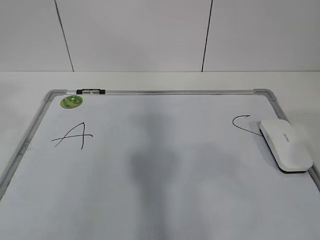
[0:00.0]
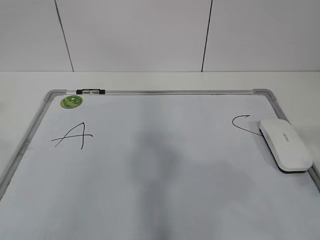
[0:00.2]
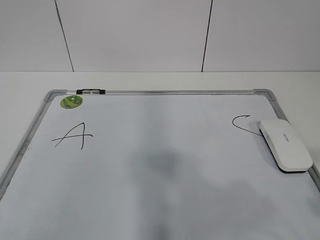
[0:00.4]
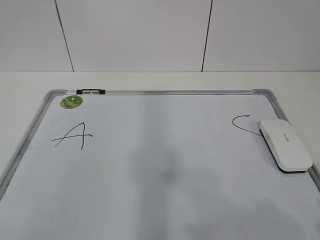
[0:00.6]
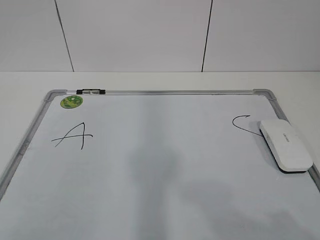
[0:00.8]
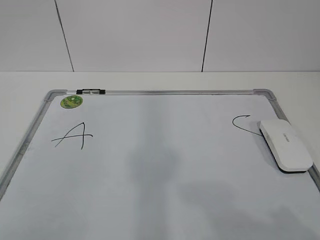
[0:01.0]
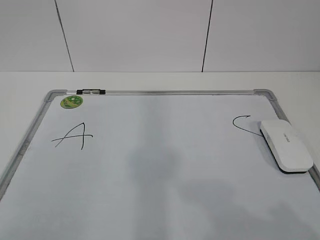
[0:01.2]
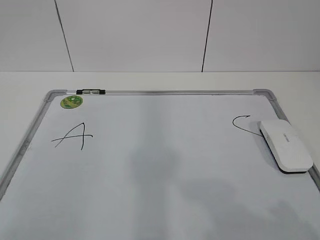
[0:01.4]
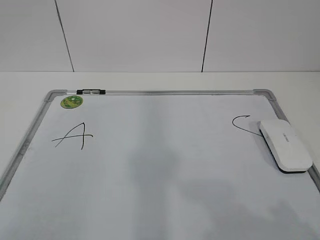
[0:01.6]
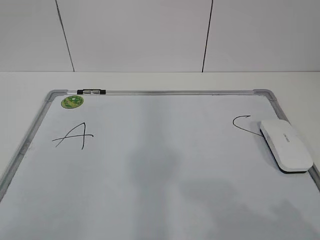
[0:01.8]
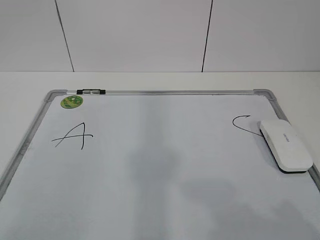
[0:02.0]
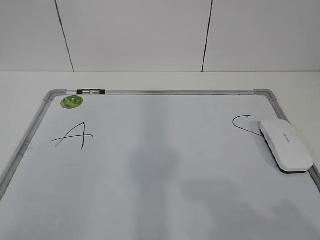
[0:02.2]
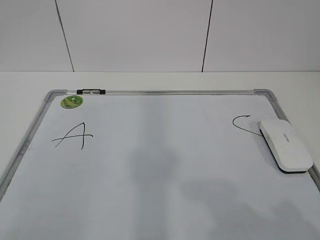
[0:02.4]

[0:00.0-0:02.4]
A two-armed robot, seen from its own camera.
Task of the whole recording: pick up the eraser on the blackboard and erase the letter "B".
0:00.0 to 0:01.2: Both grippers travel together downward and backward, some 15 cm.
0:01.2 to 0:02.4: Neither gripper changes place.

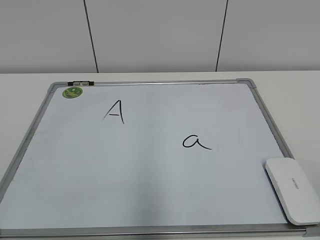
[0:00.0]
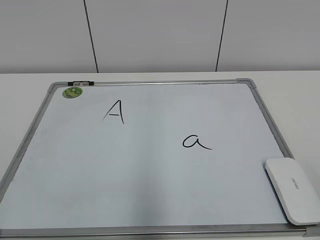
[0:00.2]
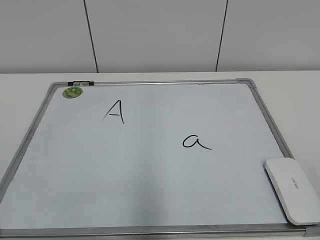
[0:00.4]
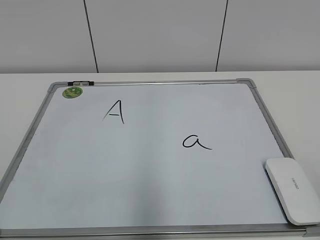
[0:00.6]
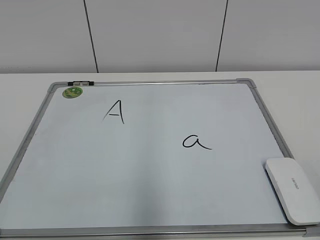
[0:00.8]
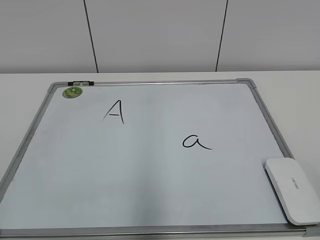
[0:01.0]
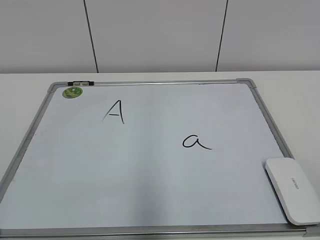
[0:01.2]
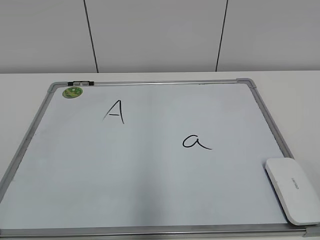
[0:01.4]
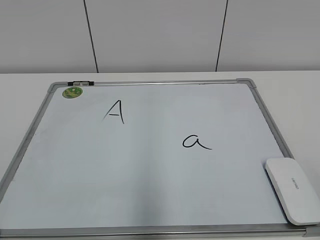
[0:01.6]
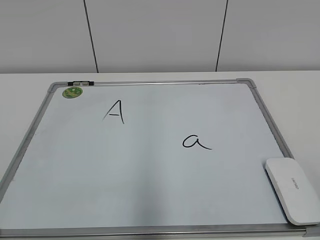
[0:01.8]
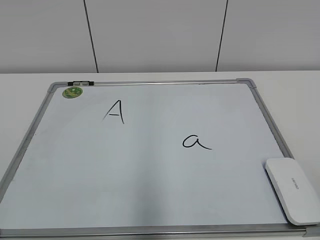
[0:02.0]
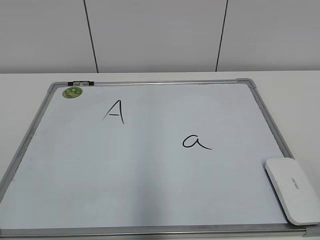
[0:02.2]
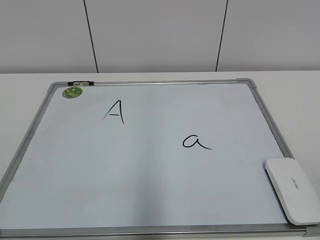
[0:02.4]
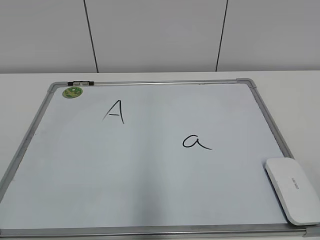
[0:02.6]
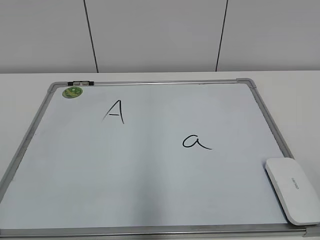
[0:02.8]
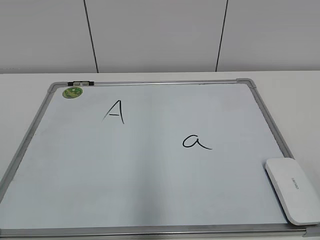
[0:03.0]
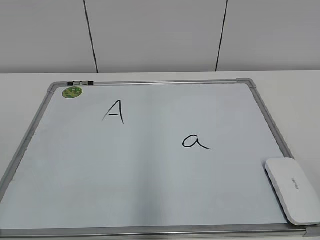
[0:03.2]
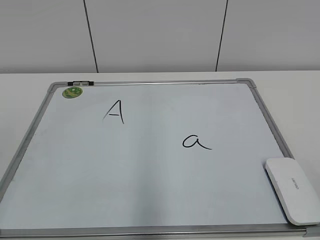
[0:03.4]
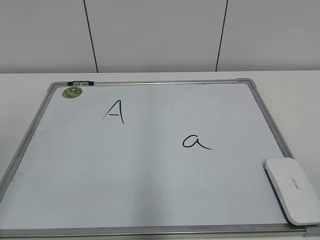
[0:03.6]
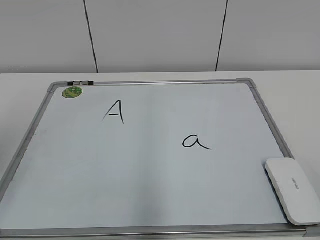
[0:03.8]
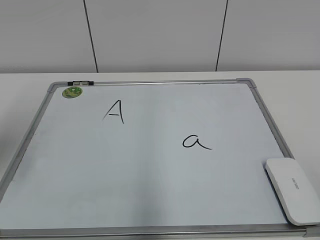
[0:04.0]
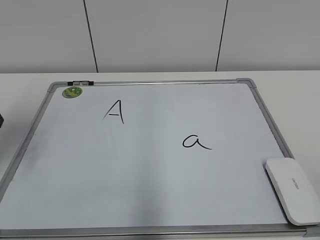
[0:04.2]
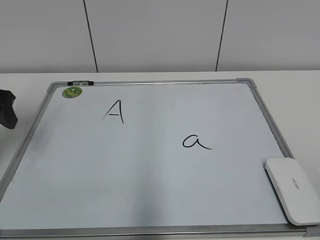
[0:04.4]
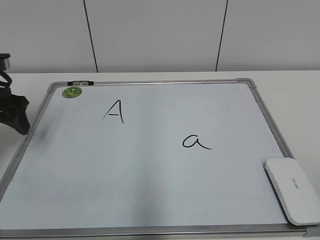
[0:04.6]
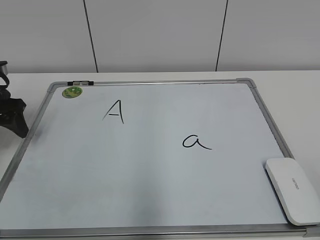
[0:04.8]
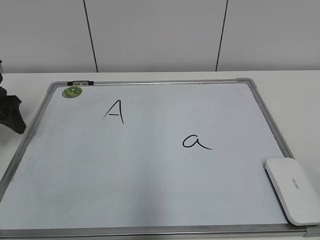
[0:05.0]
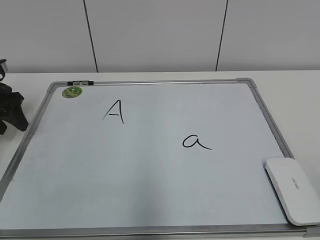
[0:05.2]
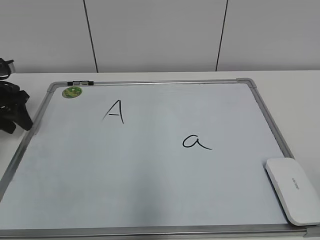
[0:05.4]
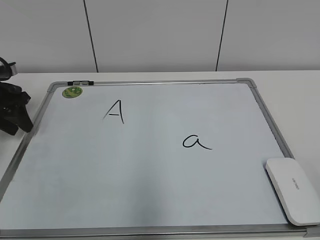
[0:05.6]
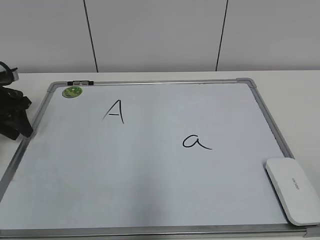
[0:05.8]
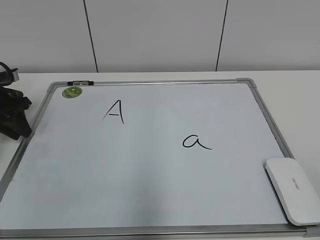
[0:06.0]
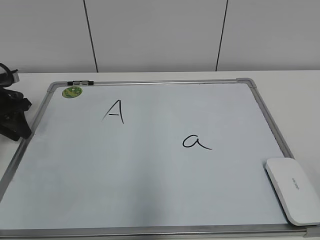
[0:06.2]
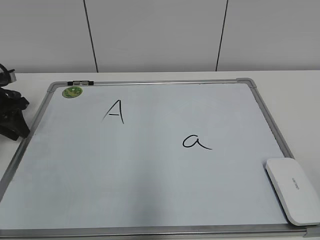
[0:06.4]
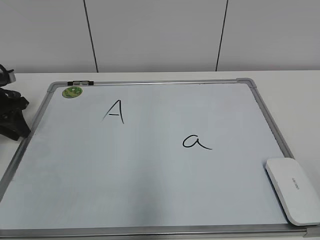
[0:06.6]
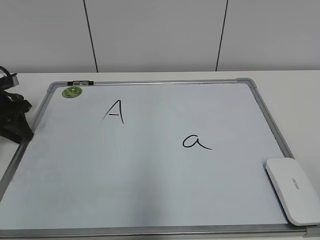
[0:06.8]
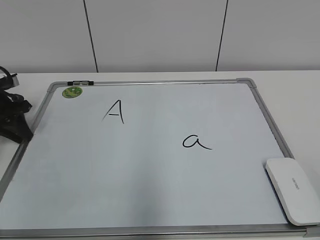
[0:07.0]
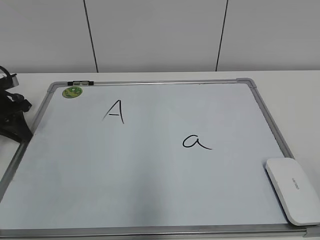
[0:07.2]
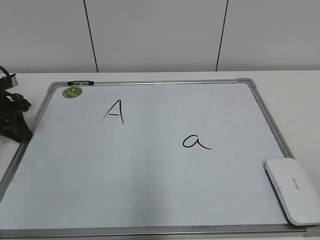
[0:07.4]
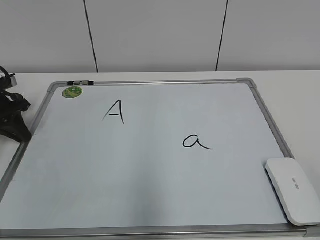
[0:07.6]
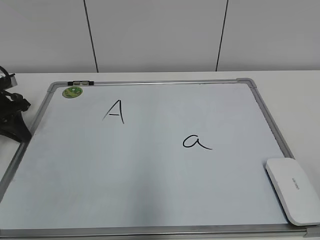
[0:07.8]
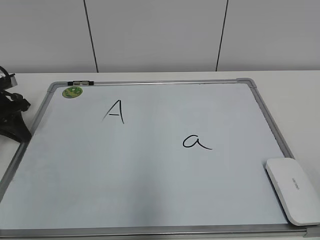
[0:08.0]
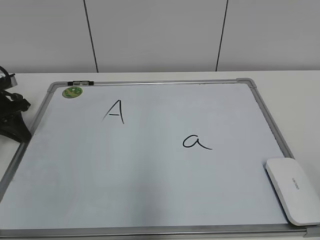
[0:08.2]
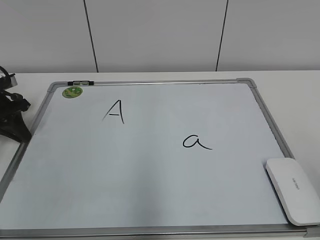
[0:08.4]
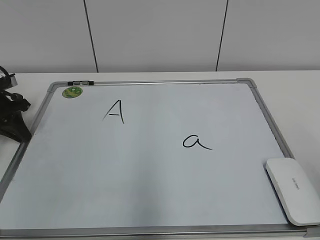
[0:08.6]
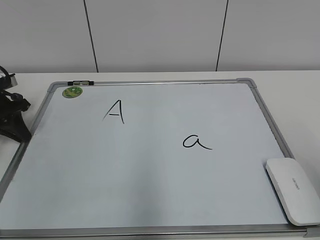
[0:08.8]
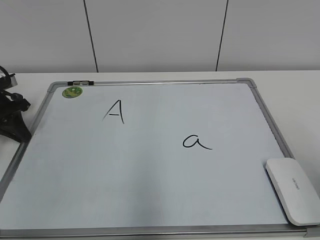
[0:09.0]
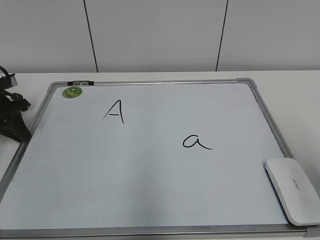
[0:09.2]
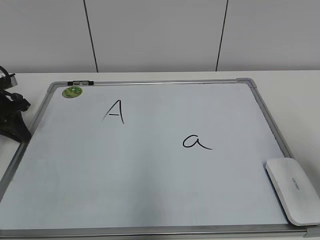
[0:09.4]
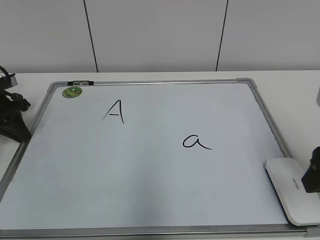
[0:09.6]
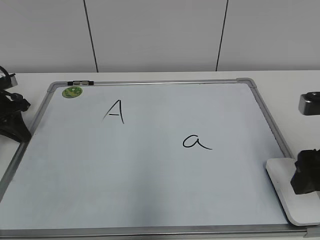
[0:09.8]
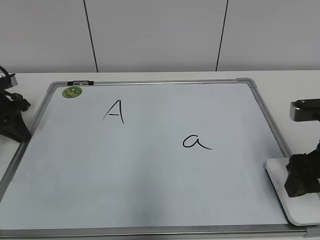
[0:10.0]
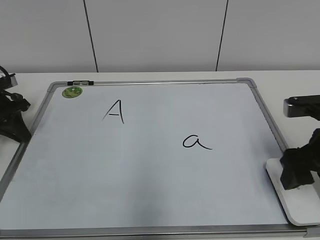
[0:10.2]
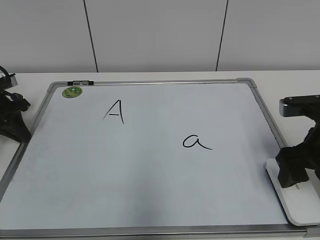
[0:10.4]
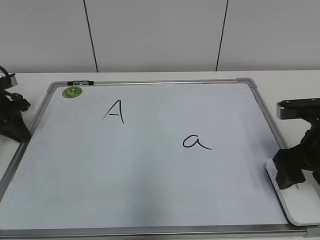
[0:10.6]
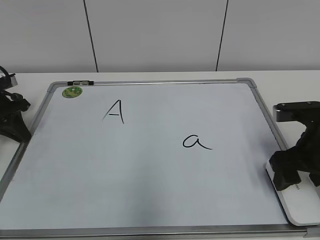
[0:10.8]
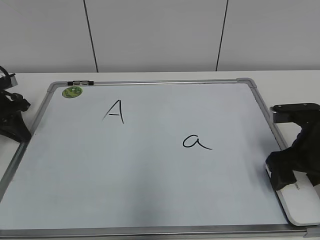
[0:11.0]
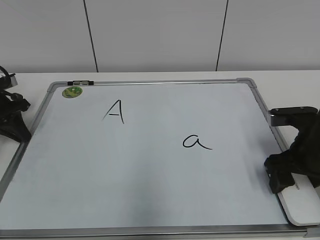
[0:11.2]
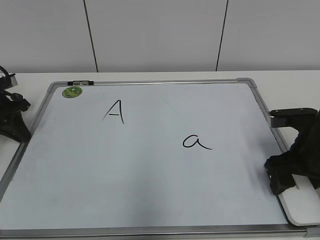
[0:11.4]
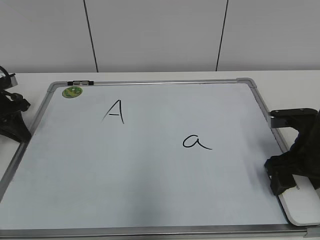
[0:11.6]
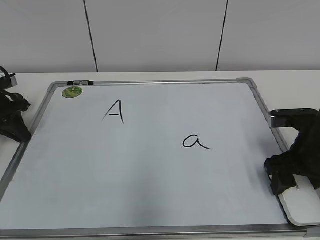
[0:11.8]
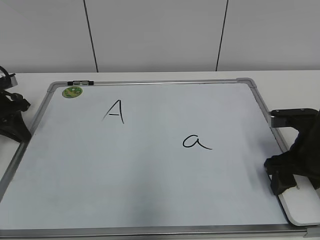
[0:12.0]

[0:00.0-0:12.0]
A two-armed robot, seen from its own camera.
Task of the whole recording: pick up the eraser on the blackboard and erase the letter "a".
Step, 0:00.0 to 0:07.0: Hold the drawing board steady with your left hand.
0:03.0 to 0:04.4: The left gripper goes roughly 35 cm forward.
0:04.4 to 0:06.0: The left gripper moves forward and downward, roughly 15 cm, and closes its fingers.
0:09.0 to 0:10.4: The right gripper goes approximately 15 cm forward and downward.
0:10.4 to 0:12.0: The grippers make only small movements.

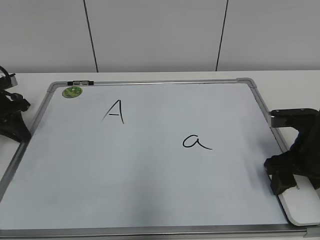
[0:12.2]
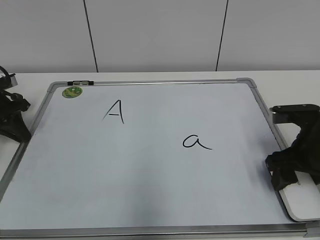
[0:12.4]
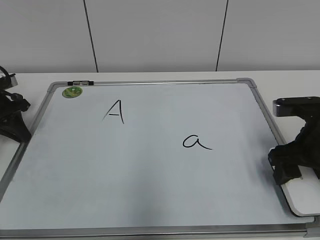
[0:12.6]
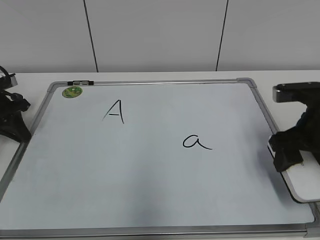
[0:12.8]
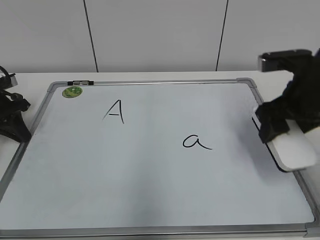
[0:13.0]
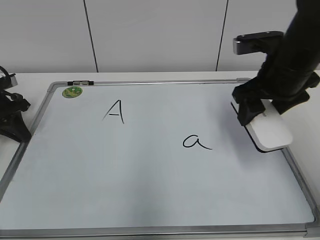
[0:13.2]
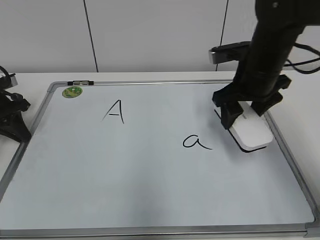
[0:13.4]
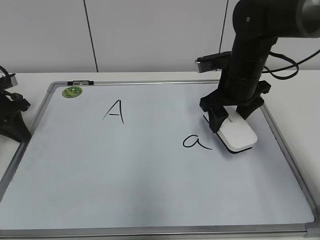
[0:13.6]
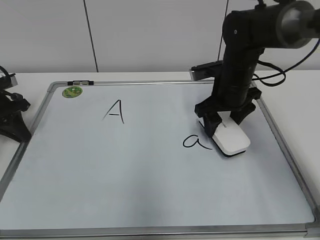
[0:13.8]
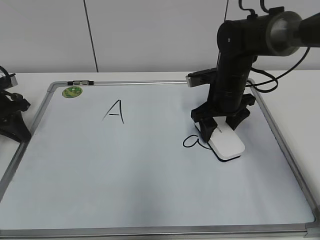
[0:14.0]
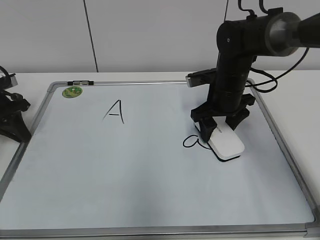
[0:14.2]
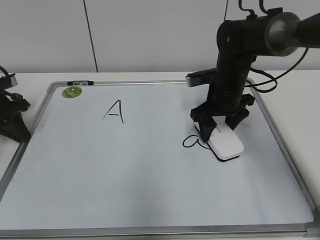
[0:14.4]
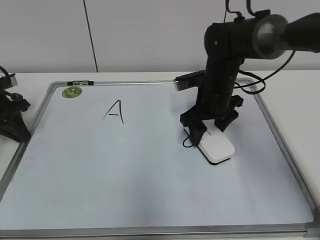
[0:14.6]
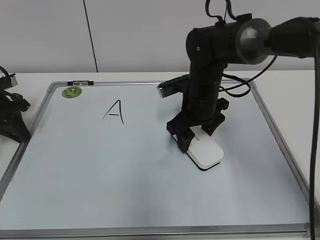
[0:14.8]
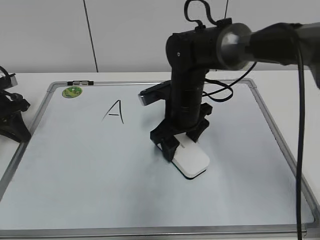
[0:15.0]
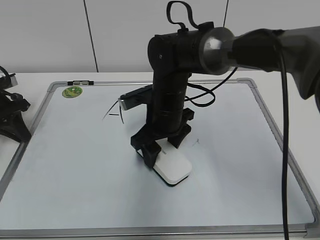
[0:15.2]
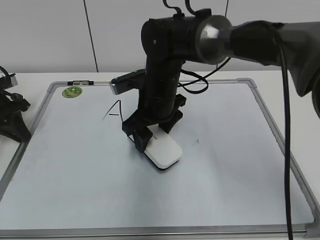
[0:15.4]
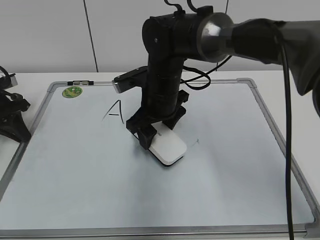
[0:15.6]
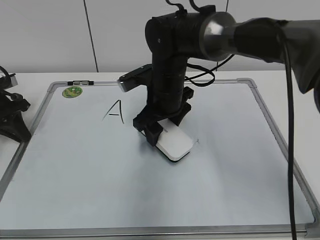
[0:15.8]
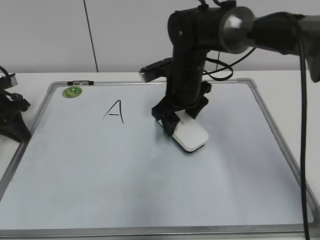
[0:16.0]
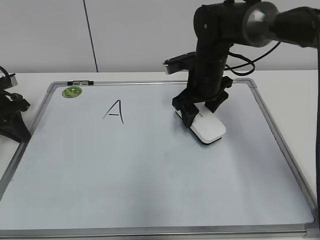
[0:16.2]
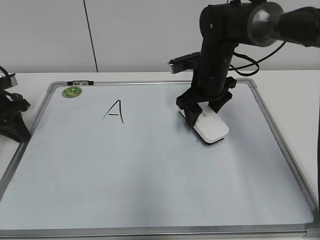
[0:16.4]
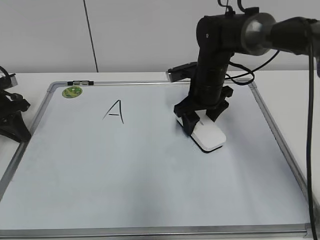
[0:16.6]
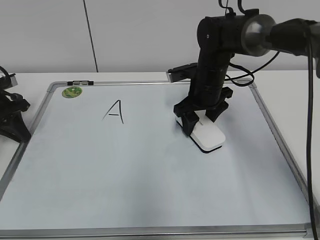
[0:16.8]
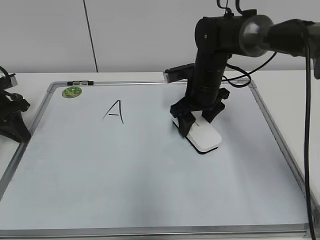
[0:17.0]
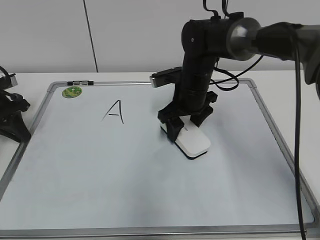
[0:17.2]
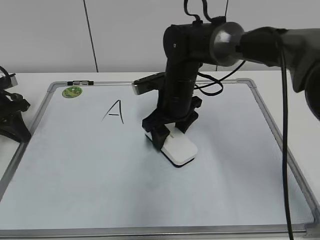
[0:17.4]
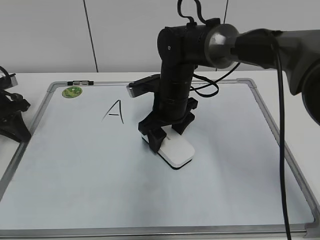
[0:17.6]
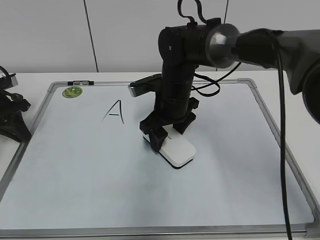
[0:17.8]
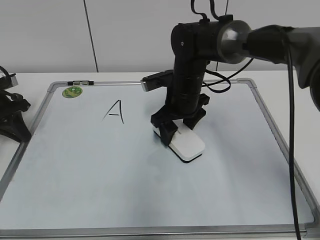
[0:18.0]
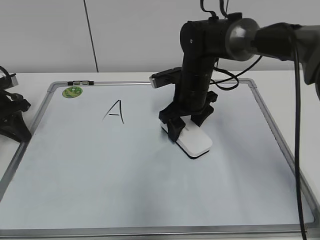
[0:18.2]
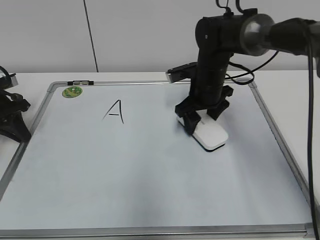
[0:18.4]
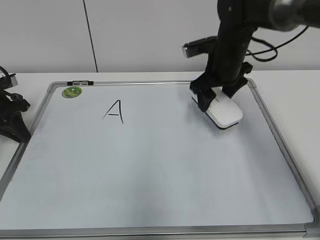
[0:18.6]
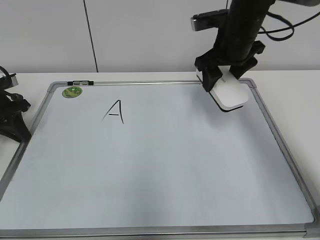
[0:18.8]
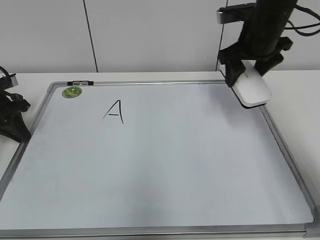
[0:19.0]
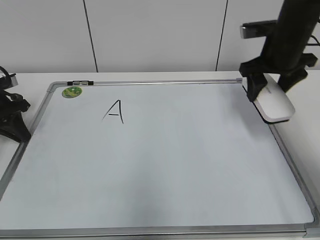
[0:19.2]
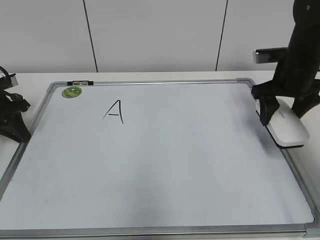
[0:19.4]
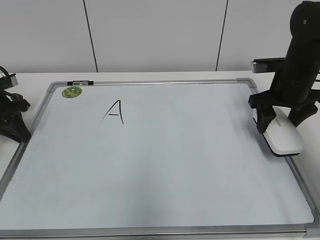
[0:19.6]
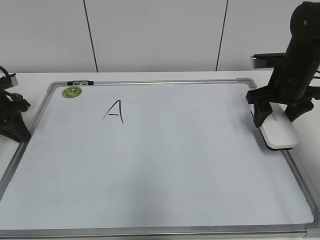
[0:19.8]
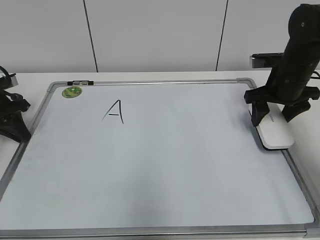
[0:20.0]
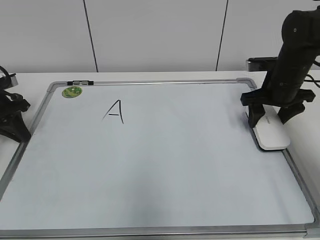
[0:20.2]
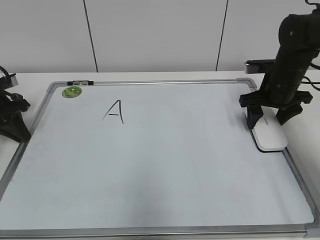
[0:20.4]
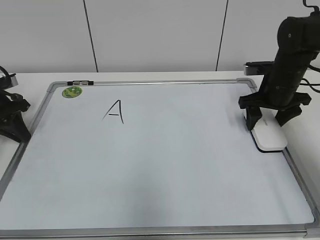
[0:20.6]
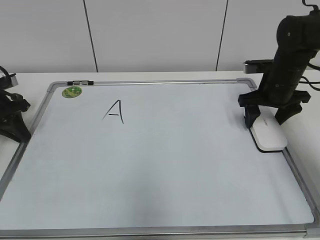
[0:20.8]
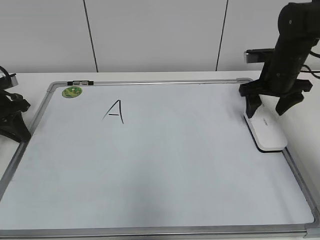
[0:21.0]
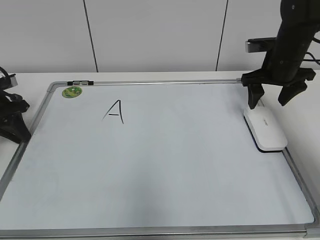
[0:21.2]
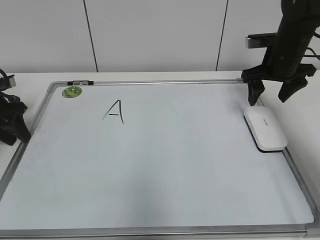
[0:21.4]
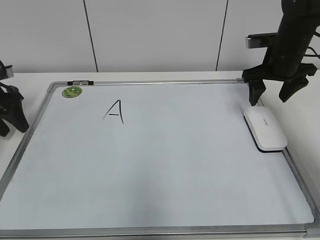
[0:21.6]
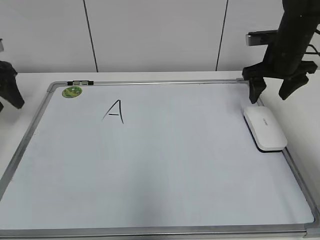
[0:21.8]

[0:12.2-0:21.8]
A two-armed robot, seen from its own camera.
Task of the whole recording: pick up the eraser on the blackboard and erase the letter "a".
Step, 0:12.2 to 0:18.0: Erase the letter a with your right hand.
Step, 0:18.2 to 0:20.6: Put down the eraser with your right hand.
0:12.2 to 0:13.8: The right gripper travels forward and to the left by some 15 cm.
0:13.8 to 0:15.4: The right gripper moves to the left, about 15 cm.
0:15.4 to 0:17.0: The right gripper travels to the right and forward by roughly 10 cm.
0:17.0 to 0:18.6: The right gripper heads upward, covering some 5 cm.
0:18.6 to 0:20.2: The right gripper goes roughly 10 cm to the right.
0:20.2 to 0:21.8: The right gripper goes some 5 cm upward. The left gripper goes about 10 cm upward, and opens its fingers.
